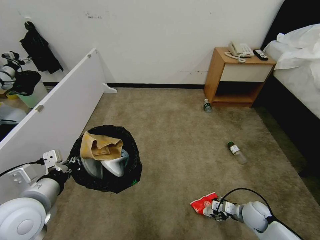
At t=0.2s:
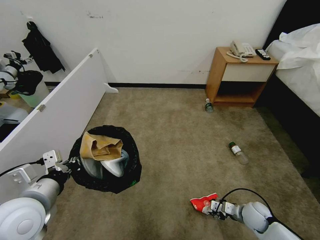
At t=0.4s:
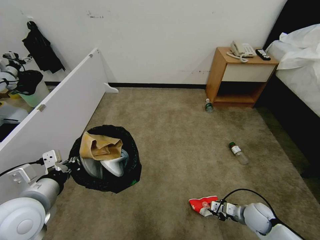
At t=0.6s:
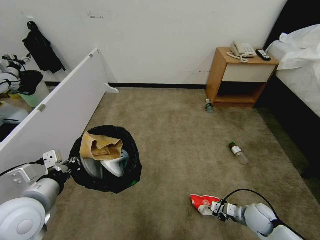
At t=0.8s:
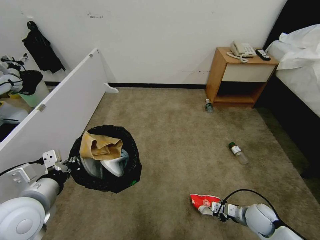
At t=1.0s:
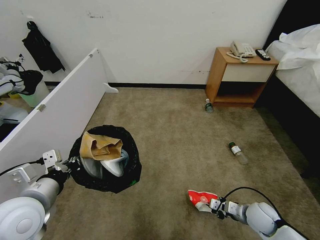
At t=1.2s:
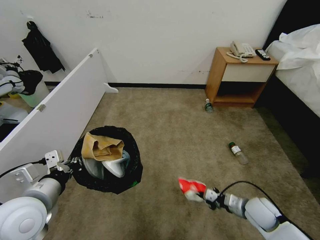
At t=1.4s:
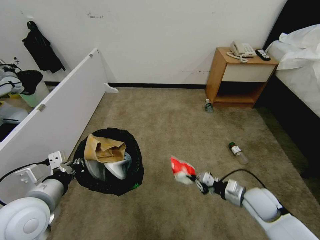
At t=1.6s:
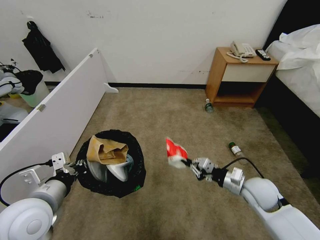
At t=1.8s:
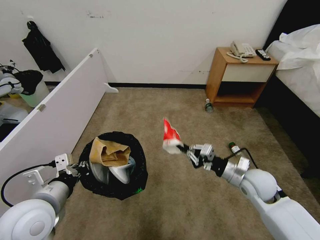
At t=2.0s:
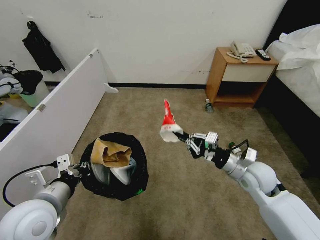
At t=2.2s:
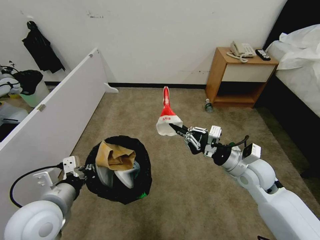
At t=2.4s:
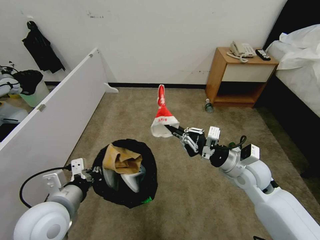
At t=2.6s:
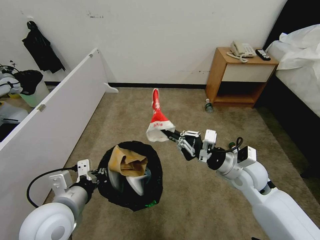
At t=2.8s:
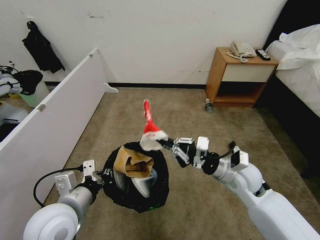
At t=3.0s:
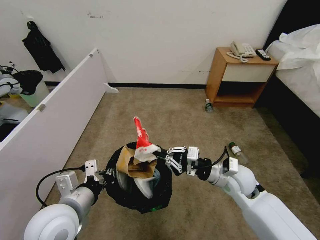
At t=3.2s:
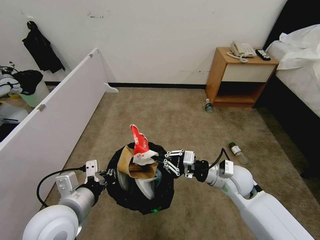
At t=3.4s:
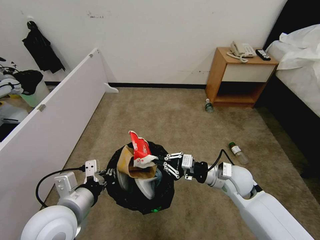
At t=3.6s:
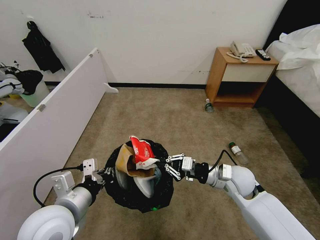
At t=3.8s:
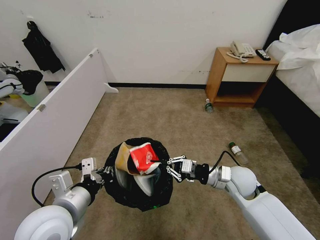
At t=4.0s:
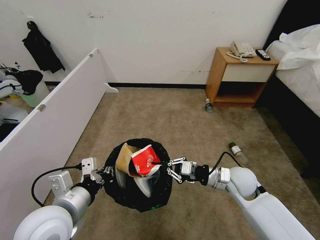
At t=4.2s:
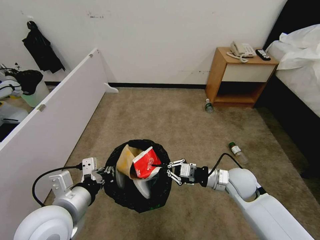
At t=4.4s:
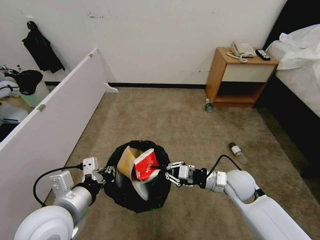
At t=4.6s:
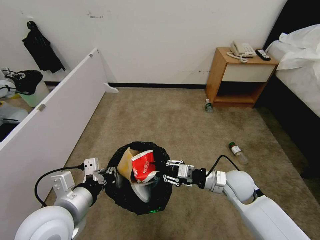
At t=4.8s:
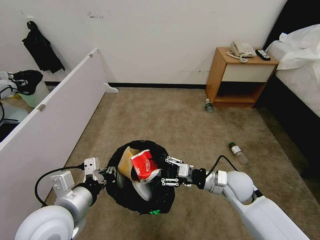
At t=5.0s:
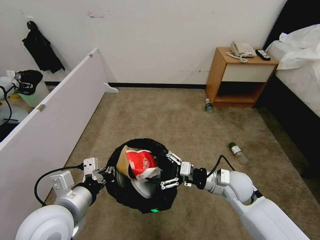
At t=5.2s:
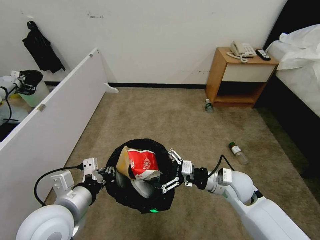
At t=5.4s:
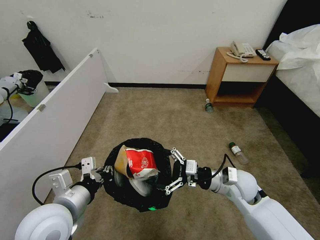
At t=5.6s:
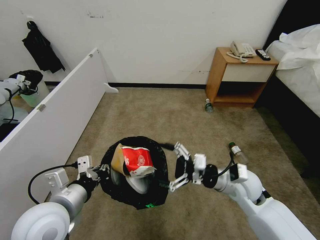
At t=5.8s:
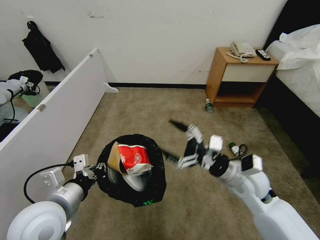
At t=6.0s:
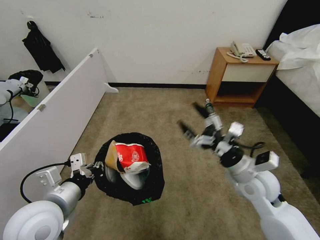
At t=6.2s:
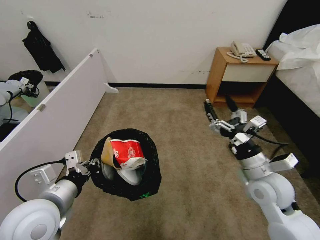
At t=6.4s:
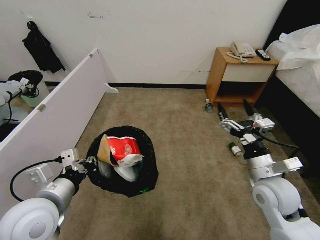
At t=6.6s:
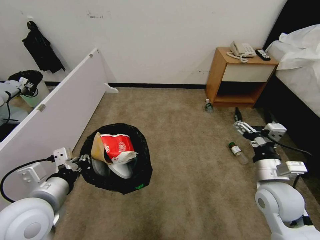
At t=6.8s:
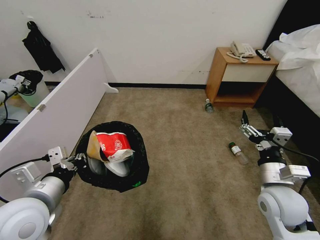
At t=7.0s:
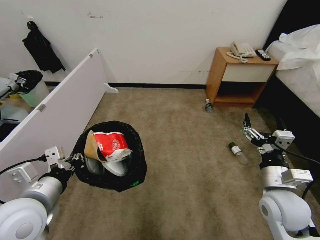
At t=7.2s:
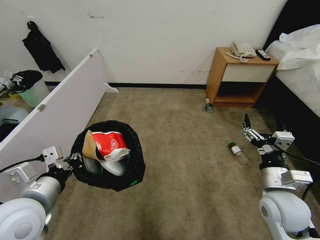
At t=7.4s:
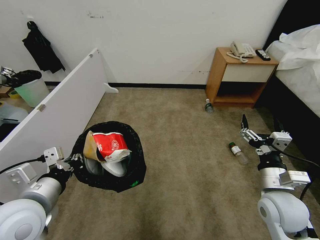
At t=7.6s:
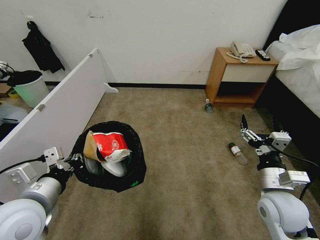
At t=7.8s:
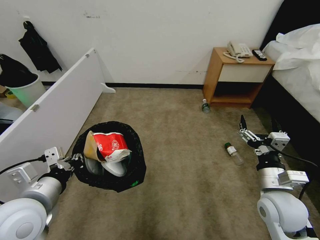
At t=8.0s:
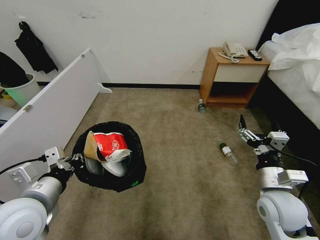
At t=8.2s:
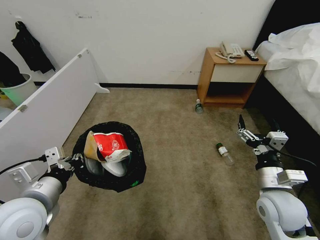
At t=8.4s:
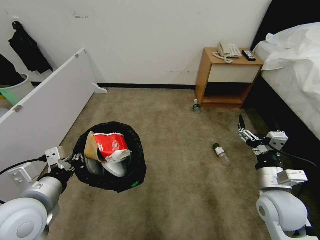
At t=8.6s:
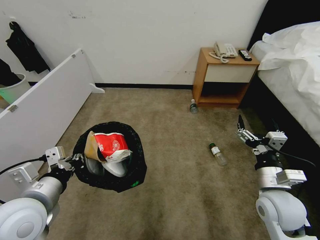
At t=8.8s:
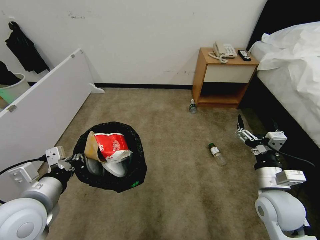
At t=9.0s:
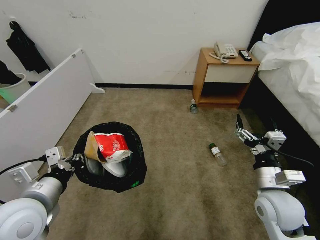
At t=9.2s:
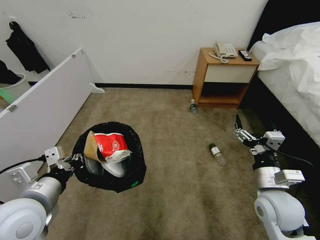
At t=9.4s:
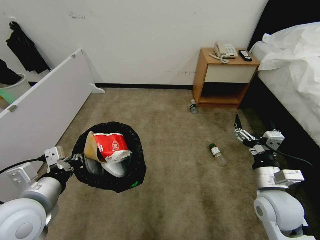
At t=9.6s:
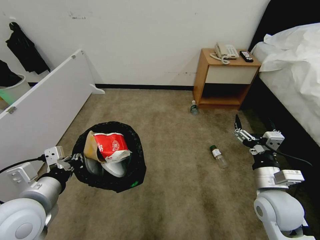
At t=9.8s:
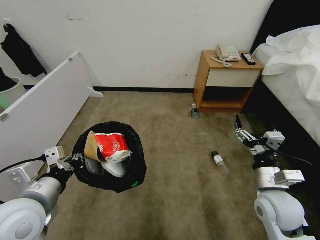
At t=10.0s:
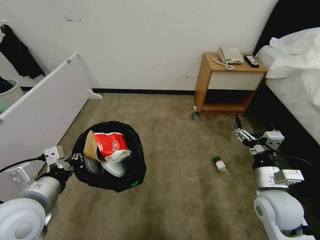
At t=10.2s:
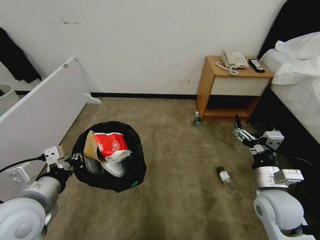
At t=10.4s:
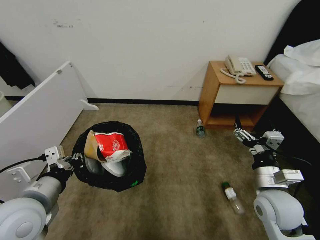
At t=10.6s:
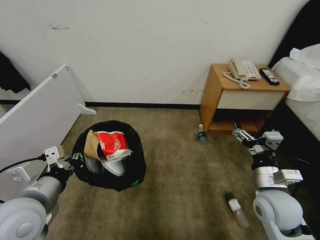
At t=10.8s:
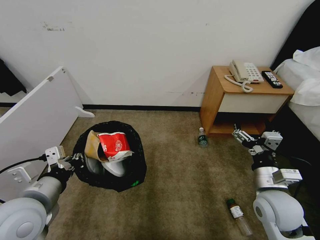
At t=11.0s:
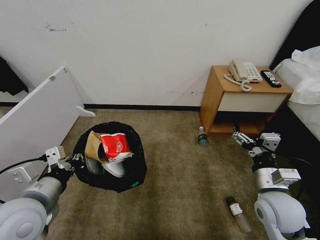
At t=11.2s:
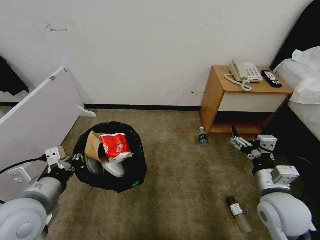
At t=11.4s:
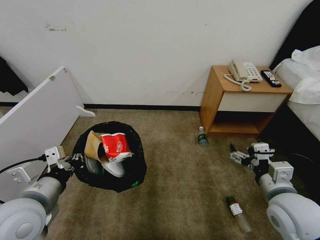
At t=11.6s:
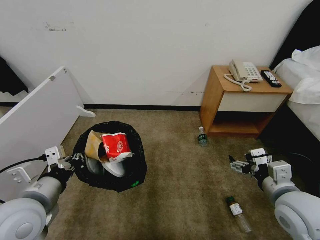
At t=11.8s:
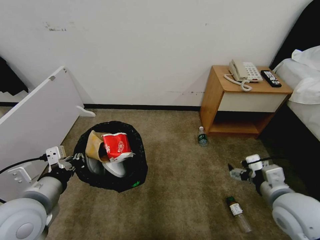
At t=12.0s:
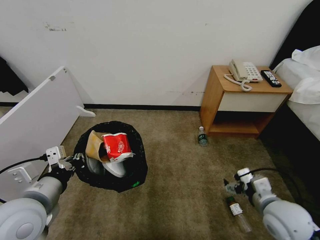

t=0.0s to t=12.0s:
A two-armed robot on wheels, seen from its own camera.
Task of the whole recording: Pick up the trash bin, then pick up the garbage from the floor and place it into the trash bin.
t=0.0s to t=1.6s: The right gripper travels upward by about 15 cm, and closes.
t=1.6s to t=3.0s: The left gripper moves to the right, about 5 cm, while the right gripper travels to the left by approximately 10 cm.
t=4.4s to t=6.0s: The right gripper moves upward, about 5 cm, and opens its fingers.
t=6.0s to t=7.6s: The right gripper shifts some 5 cm backward.

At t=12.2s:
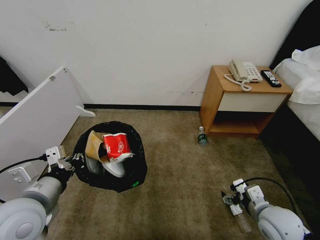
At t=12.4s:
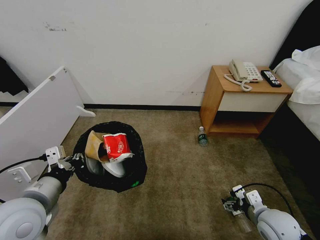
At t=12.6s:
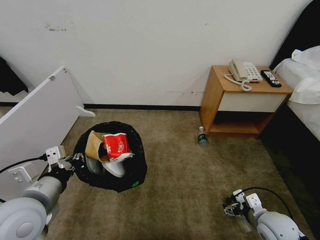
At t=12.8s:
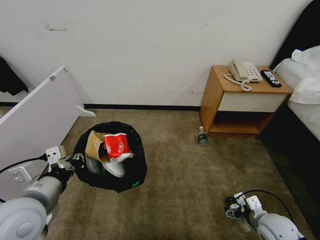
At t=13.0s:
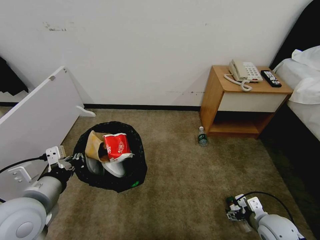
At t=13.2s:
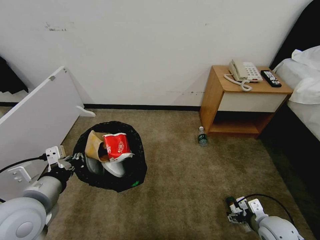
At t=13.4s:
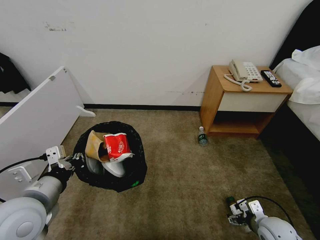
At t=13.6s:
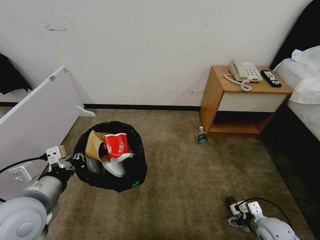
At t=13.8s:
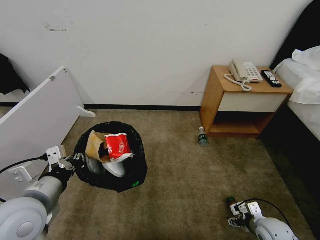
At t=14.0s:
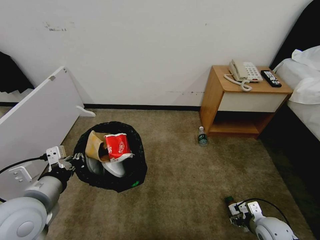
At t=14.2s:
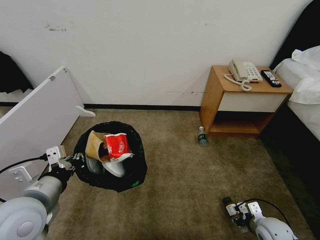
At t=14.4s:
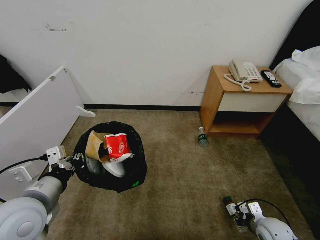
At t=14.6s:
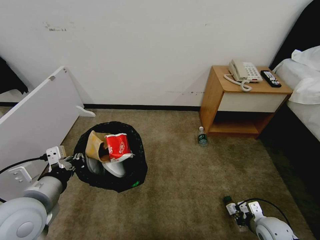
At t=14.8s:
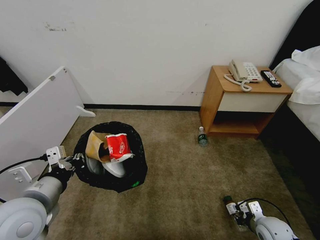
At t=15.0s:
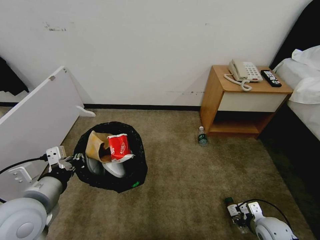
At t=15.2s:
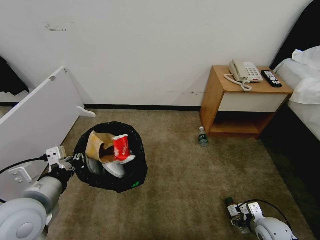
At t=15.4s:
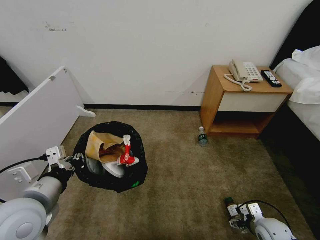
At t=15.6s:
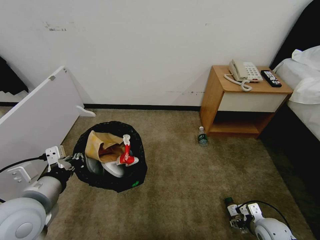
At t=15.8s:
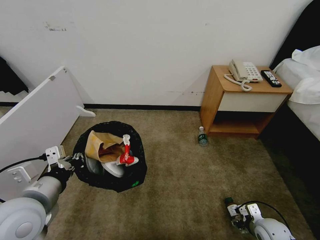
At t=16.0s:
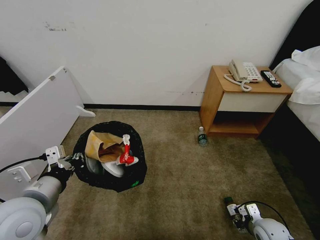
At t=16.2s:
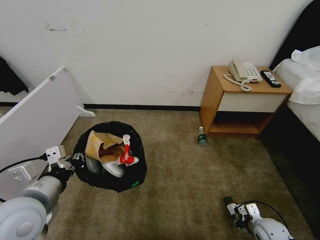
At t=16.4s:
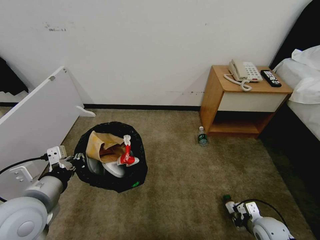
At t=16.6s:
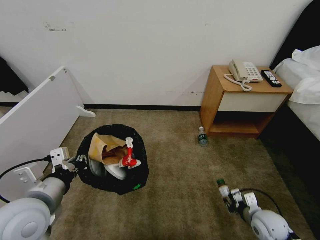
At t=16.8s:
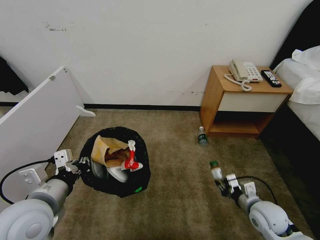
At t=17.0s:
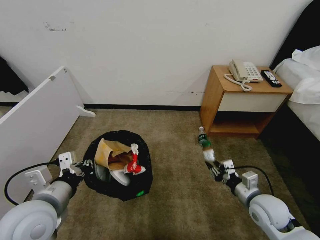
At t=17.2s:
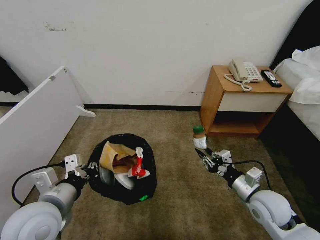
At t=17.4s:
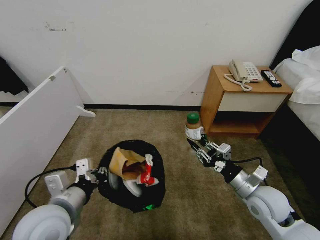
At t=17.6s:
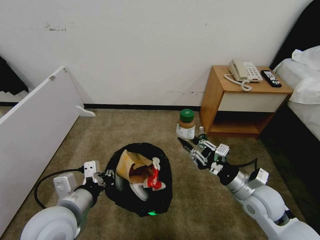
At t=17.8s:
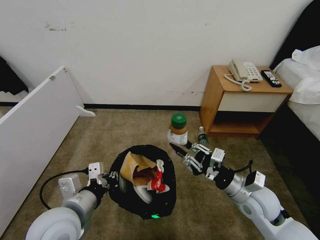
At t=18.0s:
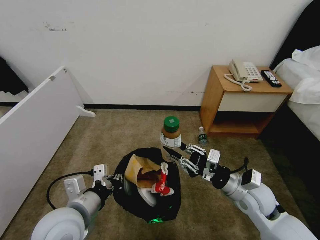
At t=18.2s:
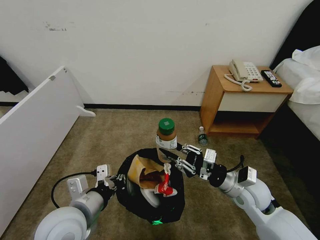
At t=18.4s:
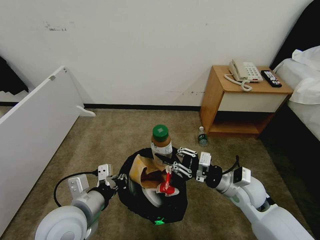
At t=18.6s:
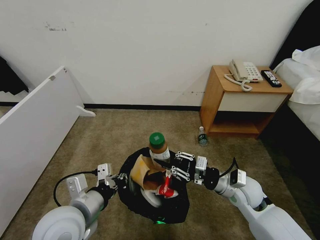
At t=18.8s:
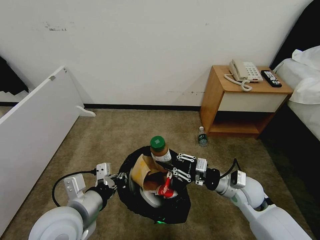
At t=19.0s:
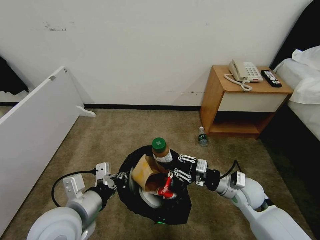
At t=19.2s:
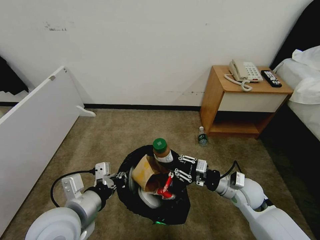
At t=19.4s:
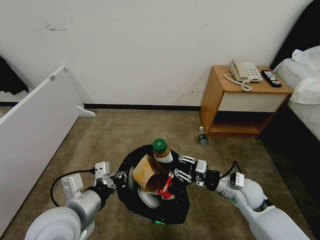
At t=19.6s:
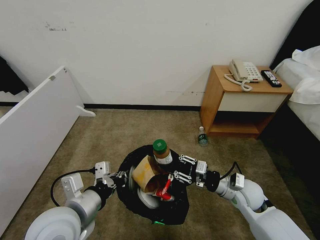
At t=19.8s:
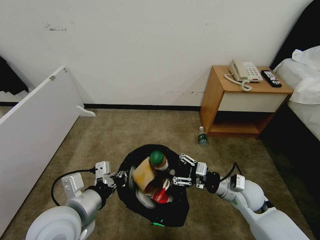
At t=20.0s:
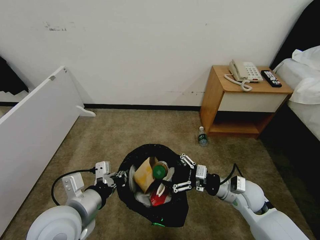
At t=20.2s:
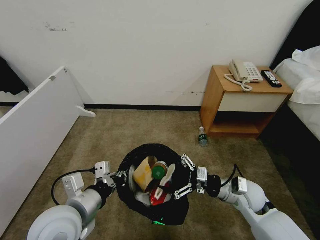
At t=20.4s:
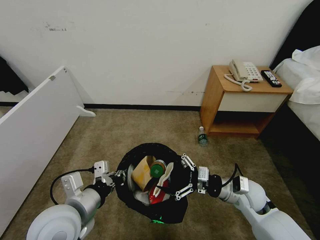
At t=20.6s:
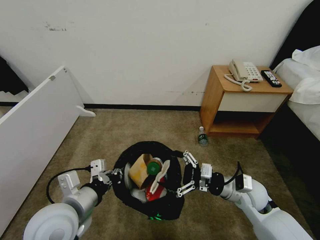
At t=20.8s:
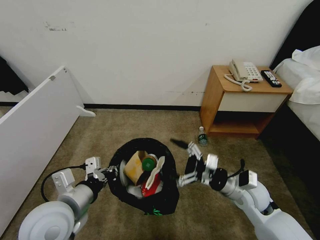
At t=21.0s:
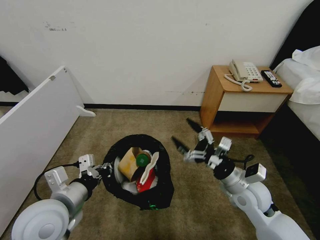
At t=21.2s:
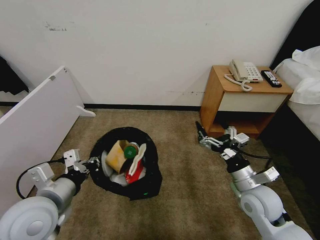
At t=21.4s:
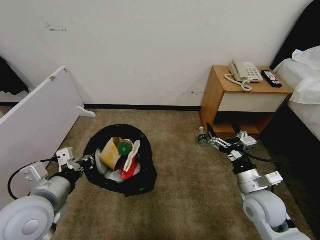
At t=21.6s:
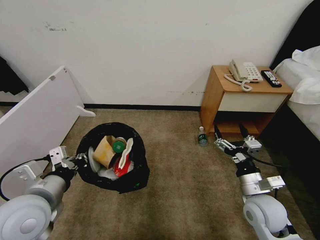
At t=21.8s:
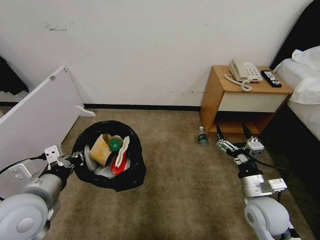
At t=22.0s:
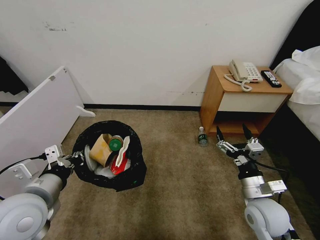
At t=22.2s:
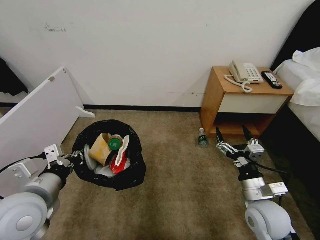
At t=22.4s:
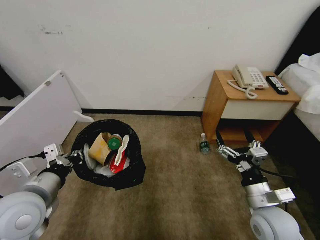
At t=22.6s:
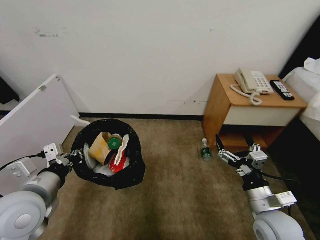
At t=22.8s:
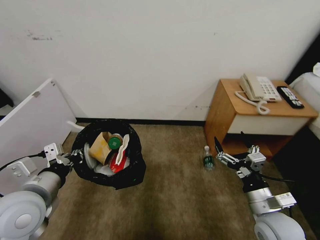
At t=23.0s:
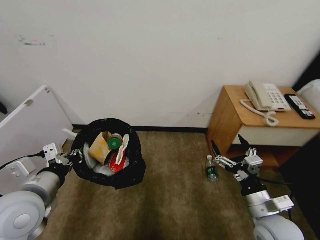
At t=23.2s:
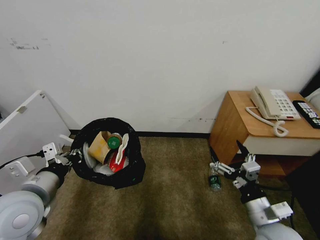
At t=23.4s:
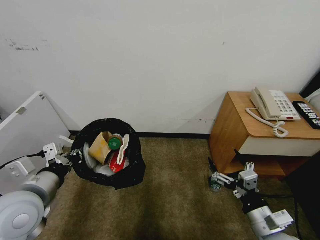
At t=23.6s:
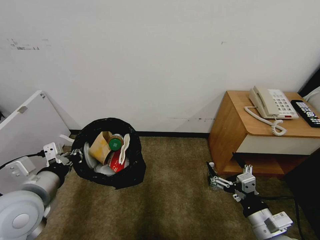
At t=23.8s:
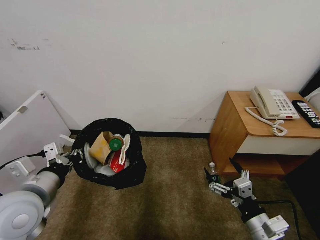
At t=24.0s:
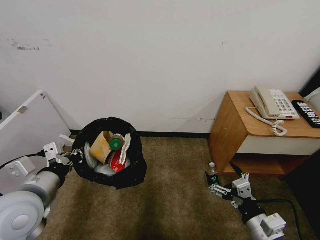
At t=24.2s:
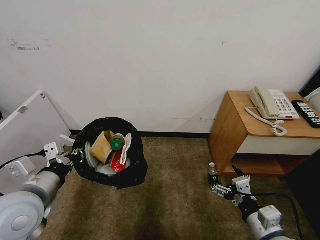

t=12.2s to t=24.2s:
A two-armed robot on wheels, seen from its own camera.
Task of the whole recording: Pick up the trash bin, then pick up the garbage from the floor and place it into the trash bin.
t=12.2s to t=13.8s: The right gripper is displaced downward by some 10 cm.
t=13.8s to t=15.2s: The right gripper closes, then opens again.
t=15.2s to t=16.6s: The right gripper closes.
t=16.6s to t=18.2s: The left gripper moves to the right, approximately 5 cm. Meanwhile the right gripper shifts some 15 cm upward and to the left.
t=18.2s to t=19.8s: The right gripper shifts by roughly 5 cm, and opens up.
t=19.8s to t=21.2s: The right gripper ends up roughly 5 cm from where it was, and opens.
t=21.2s to t=22.6s: The right gripper heads backward, covering about 5 cm.
t=22.6s to t=24.2s: The right gripper shifts approximately 5 cm backward.
